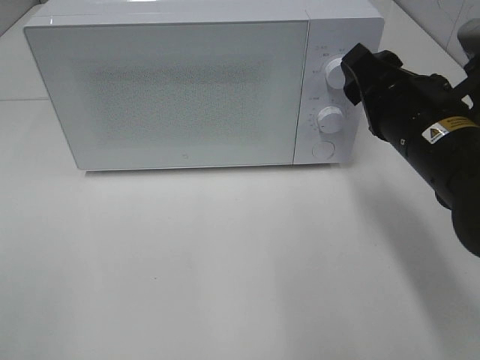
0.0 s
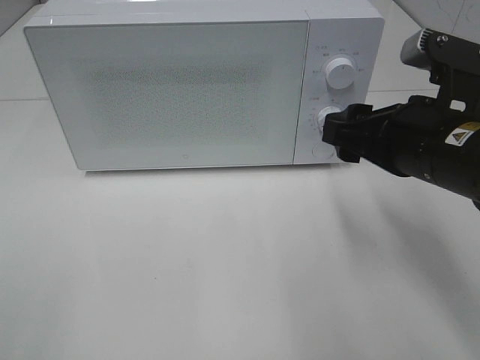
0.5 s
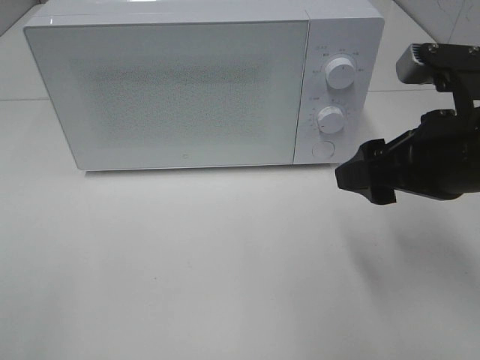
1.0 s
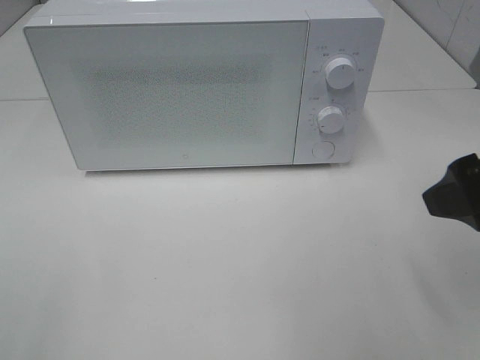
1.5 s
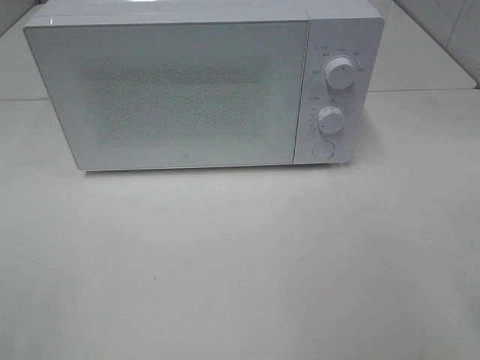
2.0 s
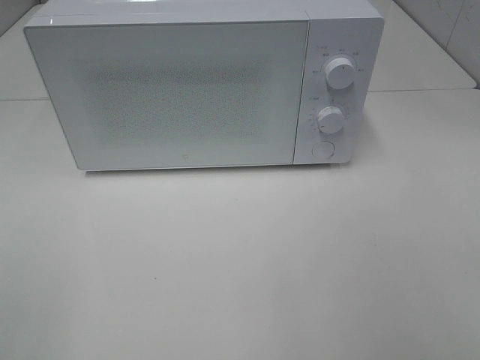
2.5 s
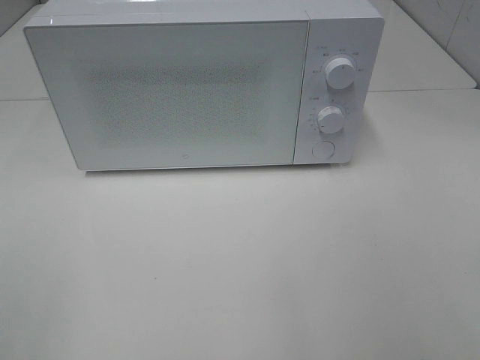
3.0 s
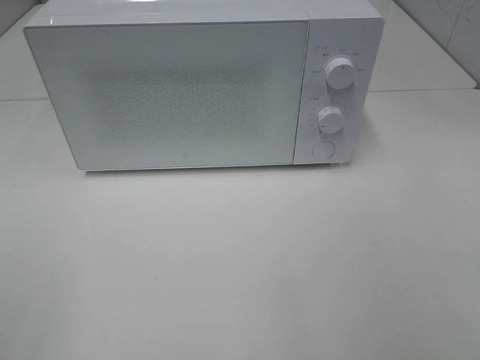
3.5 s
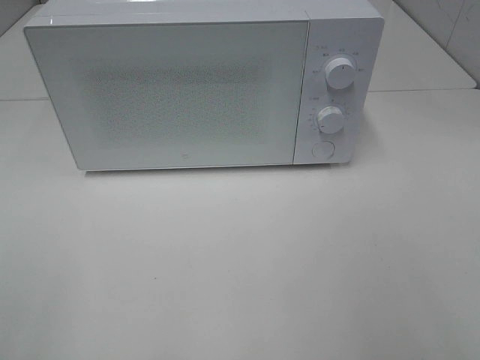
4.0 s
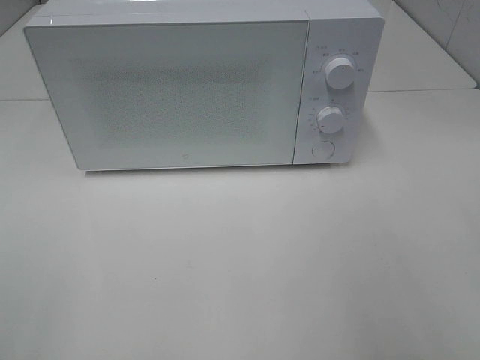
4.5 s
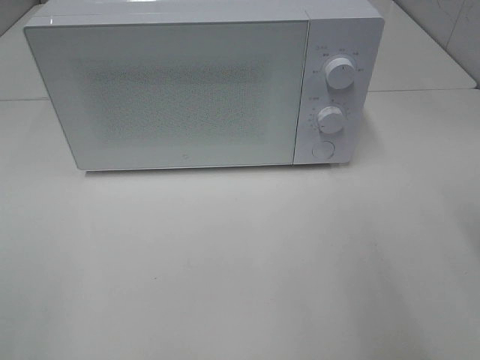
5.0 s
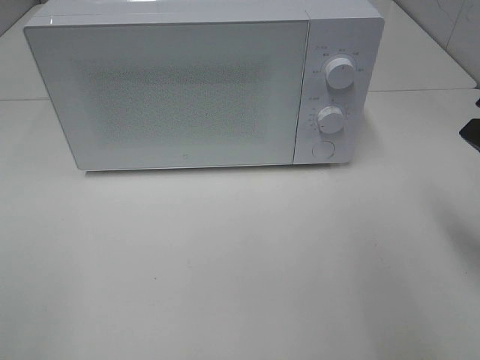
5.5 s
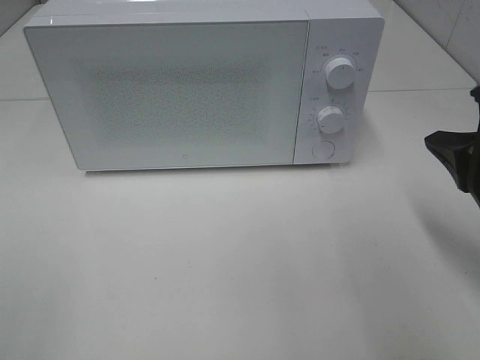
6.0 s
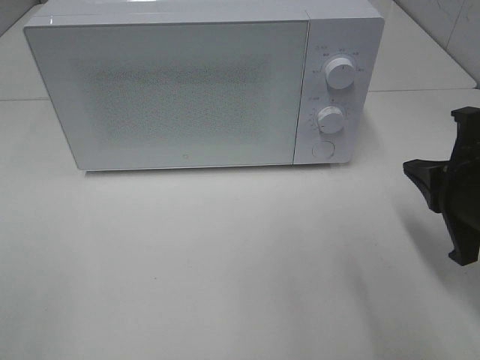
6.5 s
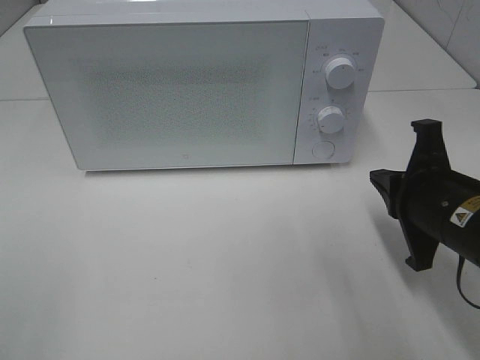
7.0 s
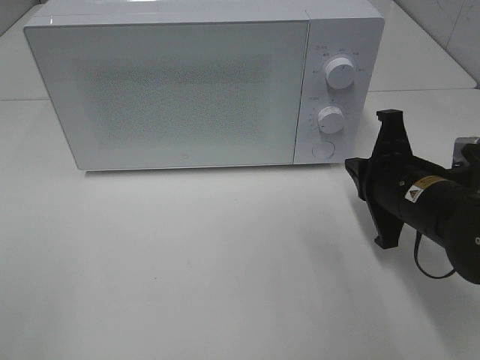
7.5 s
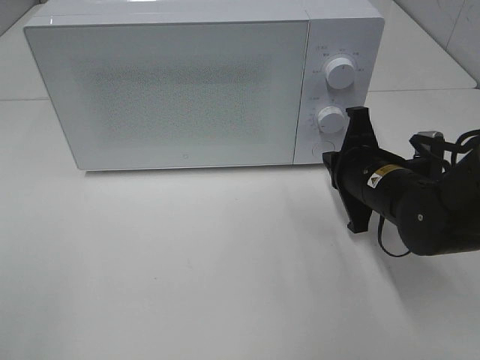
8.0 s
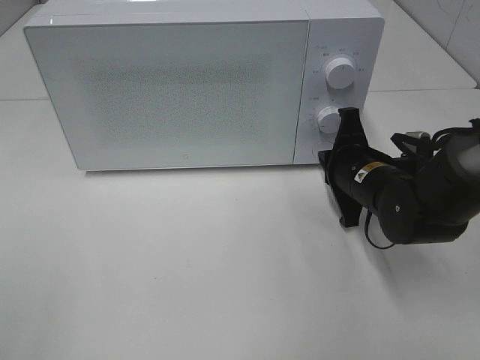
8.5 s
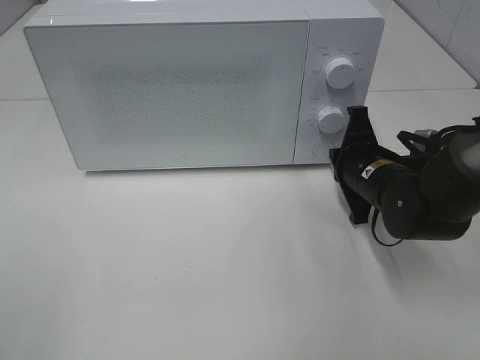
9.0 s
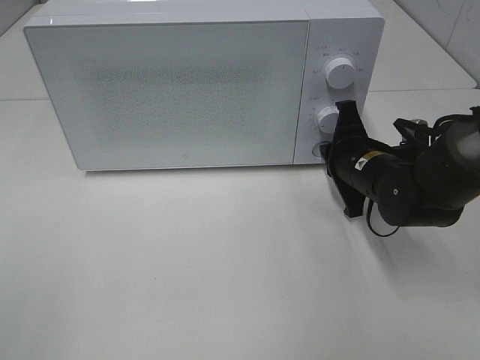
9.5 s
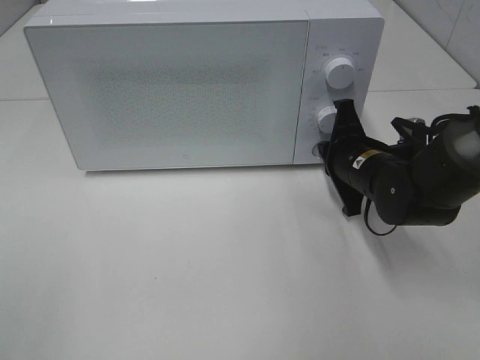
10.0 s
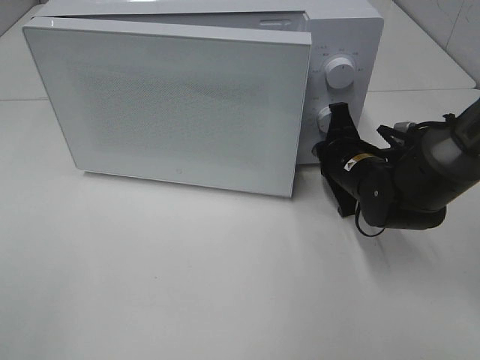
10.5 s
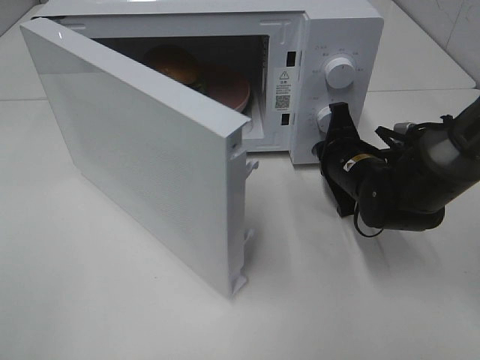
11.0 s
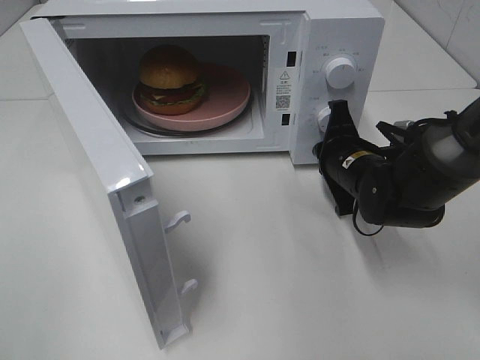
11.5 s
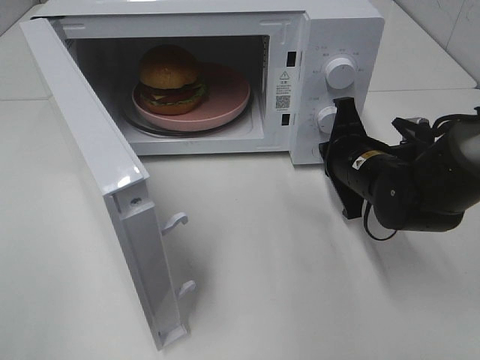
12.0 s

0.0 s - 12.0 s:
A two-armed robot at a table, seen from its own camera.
Task of the whole recording: Heat the burger.
Step, 0.0 s - 11.5 s: Right hand: press the switch.
0.0 s - 2.0 s: The right gripper moves backward, to the right and upward, some 20 cm.
4.0 s - 6.0 s: The right gripper travels forward and downward by about 20 cm, and closes up.
6.0 s - 8.0 s: The right gripper is displaced forward, to the left and downward by approximately 15 cm.
8.0 s - 10.0 s: There are only small adjustments of the grippers.

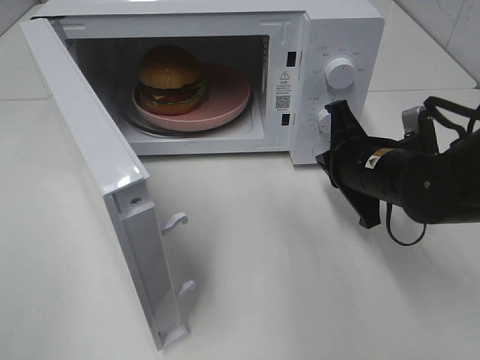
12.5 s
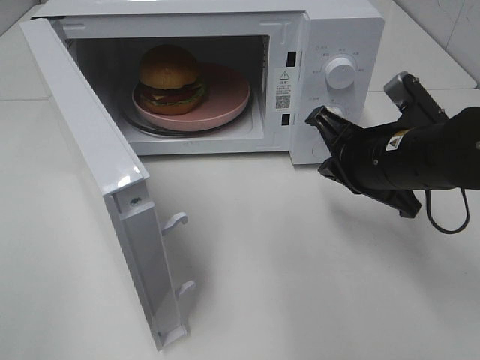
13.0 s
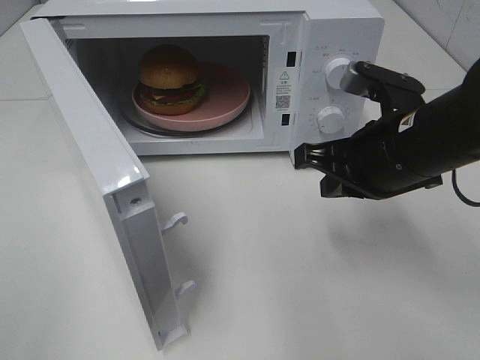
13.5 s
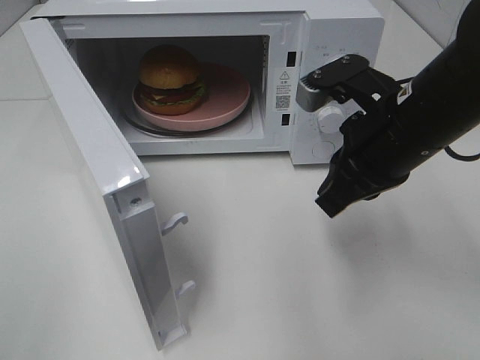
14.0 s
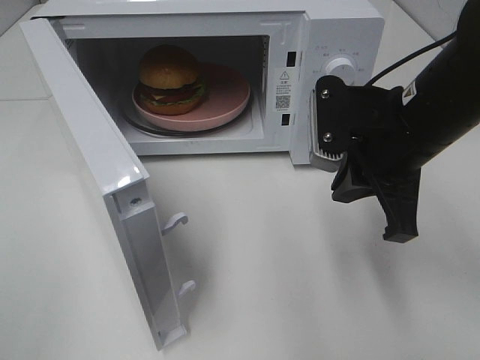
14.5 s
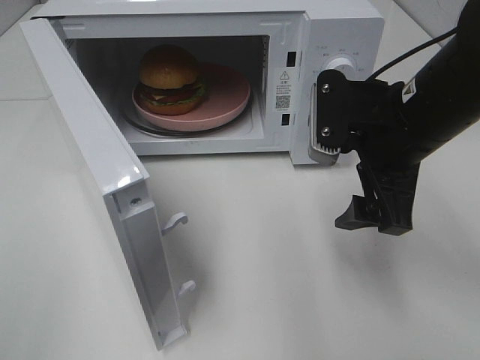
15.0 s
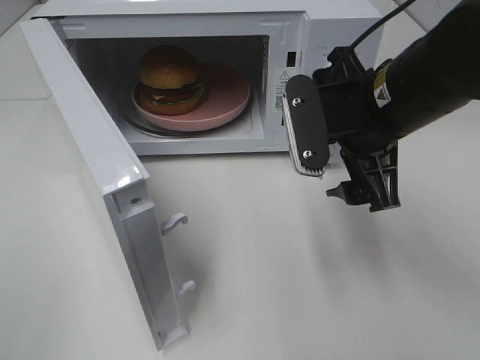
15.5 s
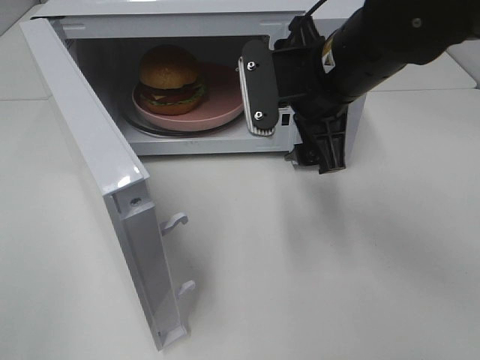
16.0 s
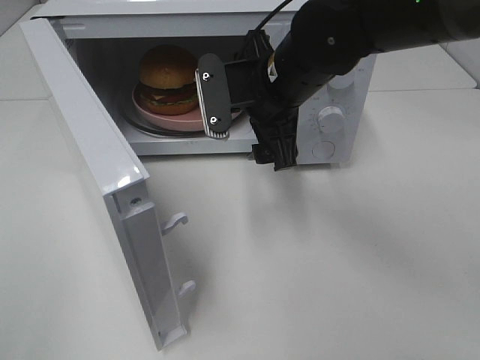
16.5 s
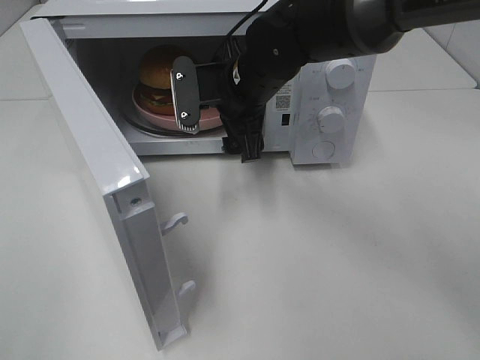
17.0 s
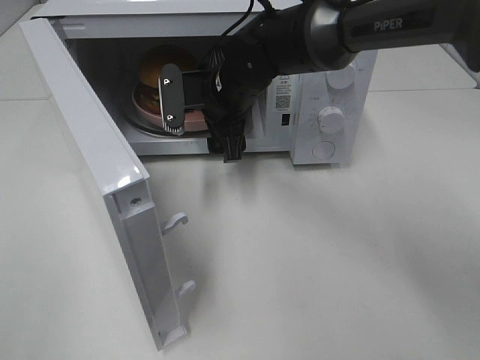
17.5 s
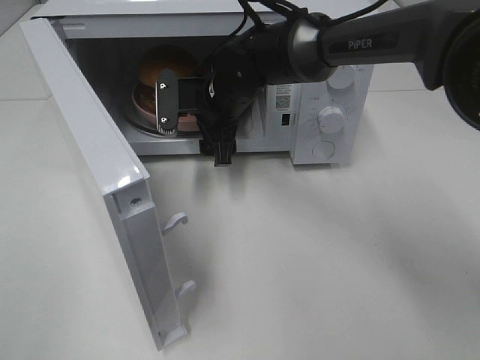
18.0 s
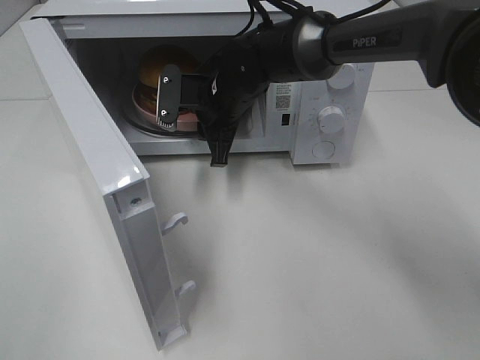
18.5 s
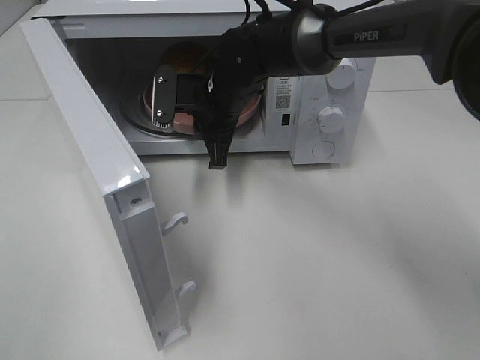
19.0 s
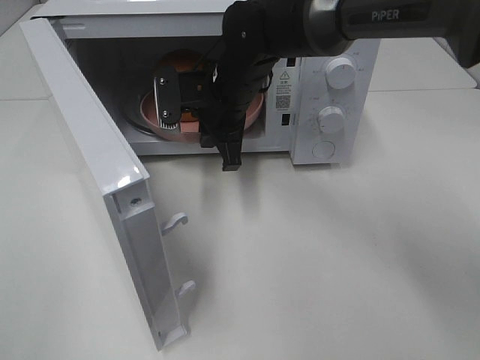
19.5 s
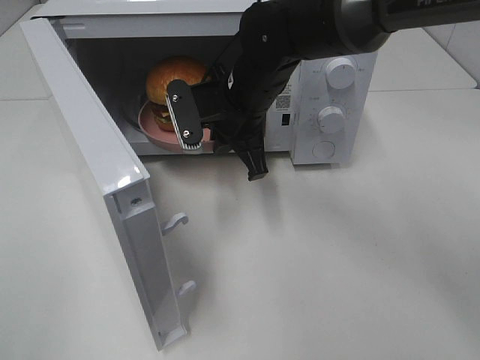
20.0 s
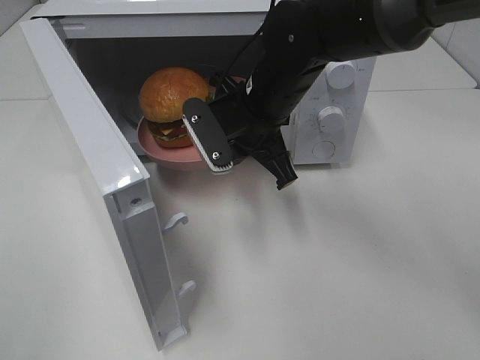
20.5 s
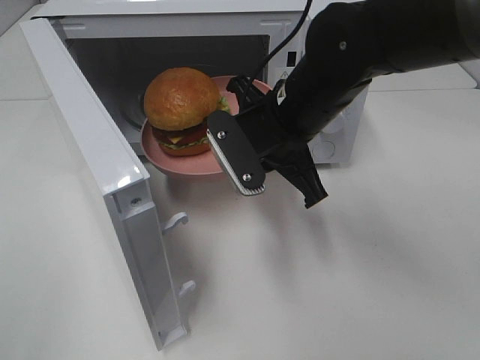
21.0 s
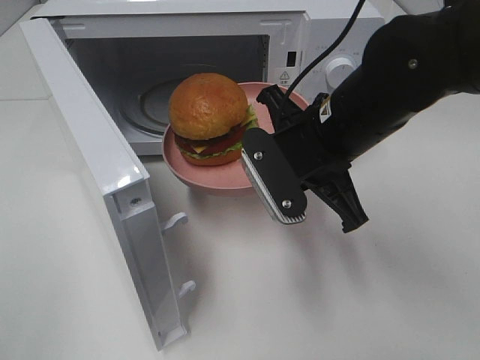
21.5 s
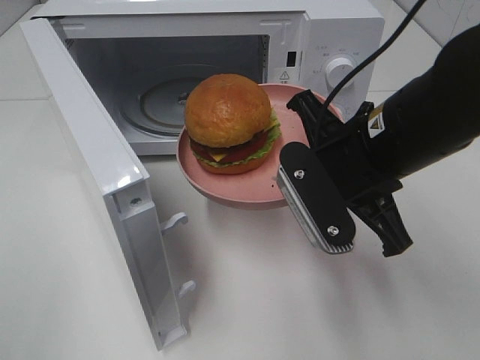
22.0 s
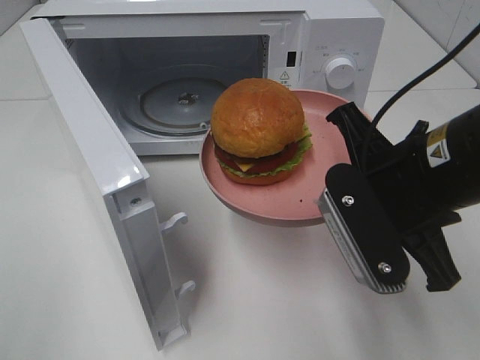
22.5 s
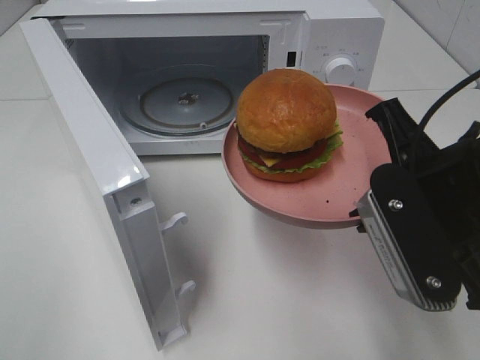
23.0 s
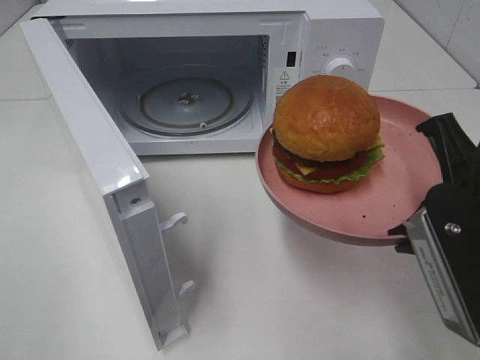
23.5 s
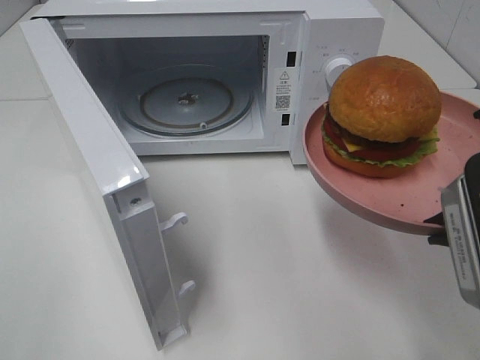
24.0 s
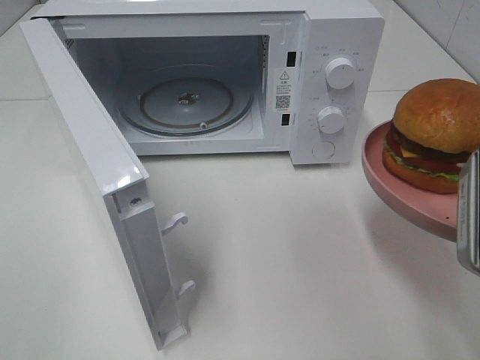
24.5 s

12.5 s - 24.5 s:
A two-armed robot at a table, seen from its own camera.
Task of the whole recording: Heat the burger.
Step, 12.5 s - 18.5 s: Right hand: grab the plate with the hamburger.
12.5 s - 14.5 s: The right gripper shifts some 10 cm upward.
14.5 s - 16.5 s: The right gripper goes roughly 15 cm to the left and forward, and opens up.
16.5 s - 18.5 s: The right gripper goes some 10 cm forward, downward and to the left, and closes up.
18.5 s - 20.5 s: The right gripper heads backward, covering roughly 5 cm.
20.5 s - 22.5 s: The right gripper shifts roughly 20 cm backward and to the right.
22.5 s - 24.5 s: The right gripper travels to the right and backward by approximately 10 cm.

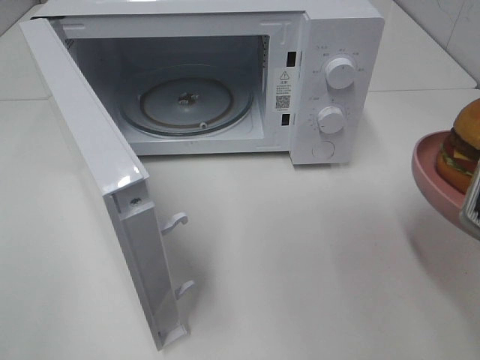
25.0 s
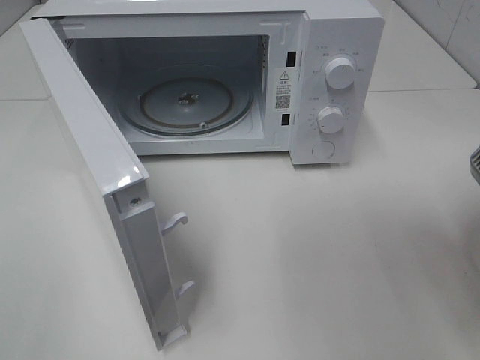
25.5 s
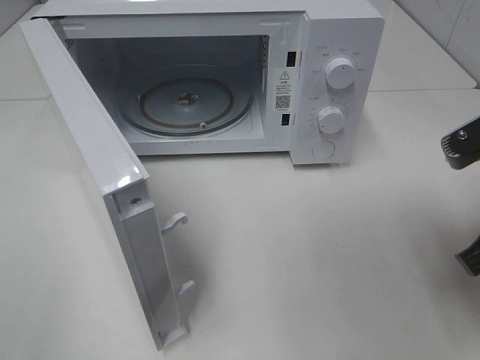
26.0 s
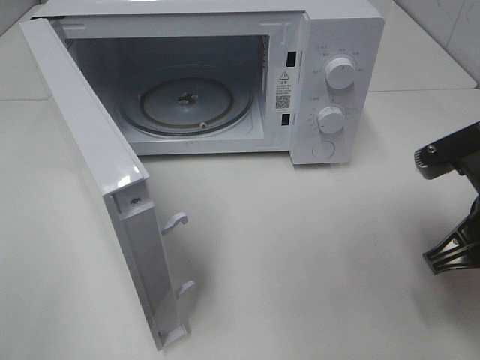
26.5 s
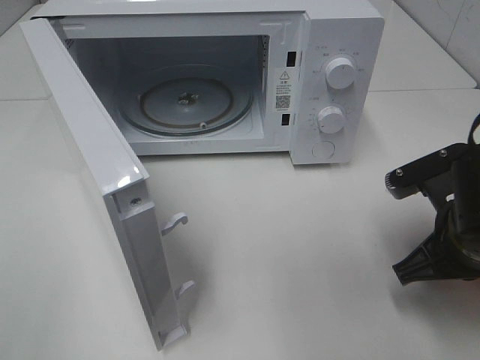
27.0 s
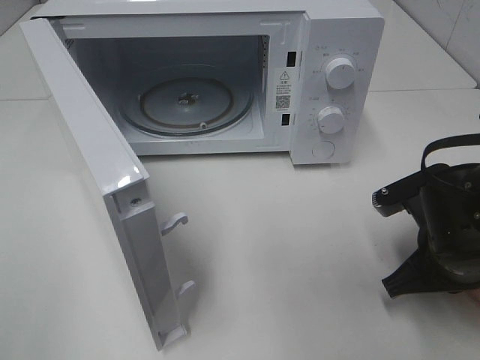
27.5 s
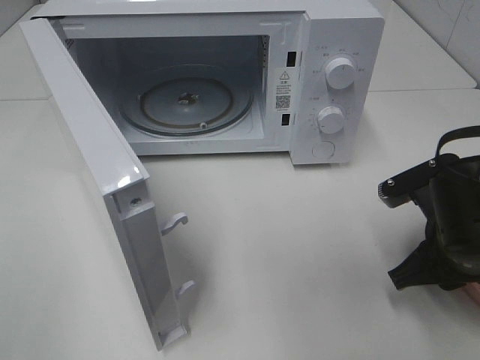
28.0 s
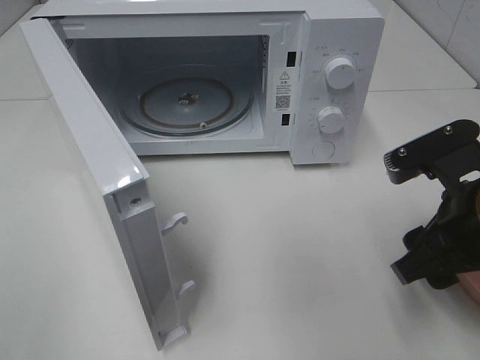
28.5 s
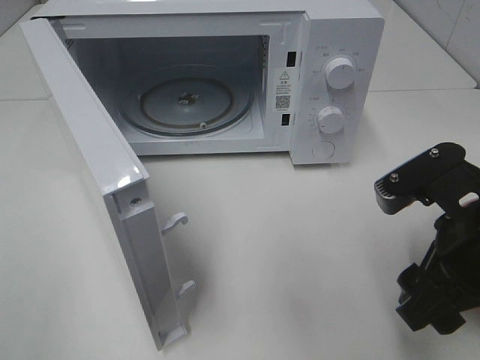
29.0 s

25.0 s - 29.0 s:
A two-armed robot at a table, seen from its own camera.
Task of the whole recording: Heat the burger.
Step, 25.0 s - 27.5 s: Right hand: place the plate on the table.
25.0 s - 27.0 s: The right gripper moves downward and forward, roughly 15 cm.
27.0 s - 29.0 s: The right gripper goes about 5 cm upward, and opens its fingers.
